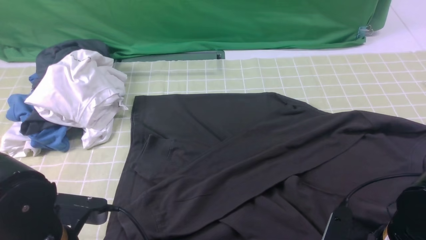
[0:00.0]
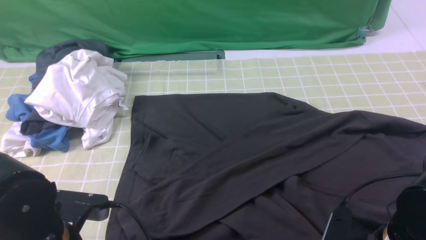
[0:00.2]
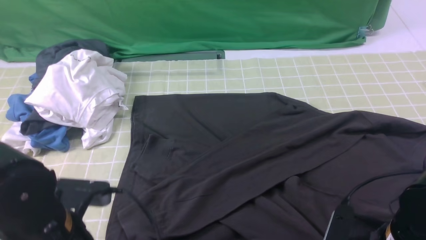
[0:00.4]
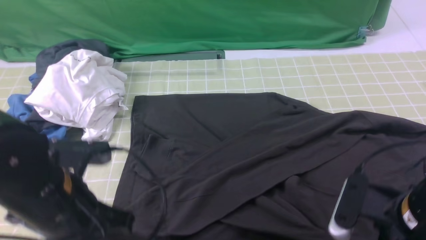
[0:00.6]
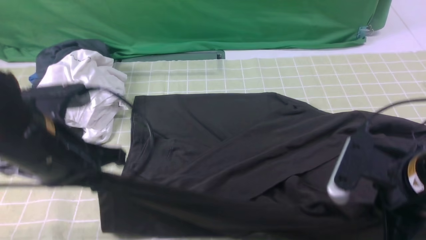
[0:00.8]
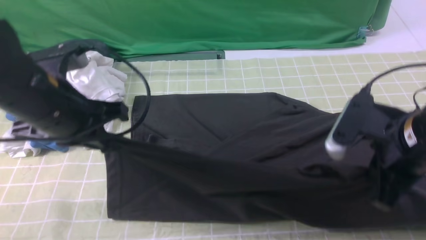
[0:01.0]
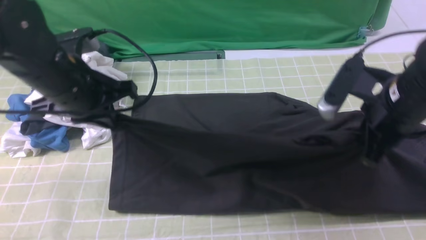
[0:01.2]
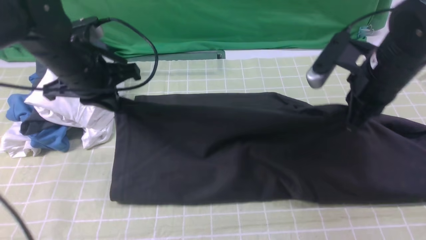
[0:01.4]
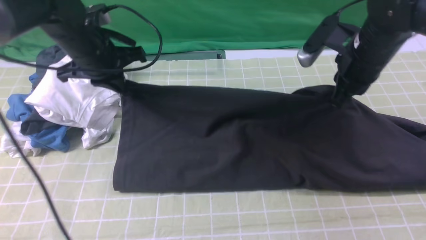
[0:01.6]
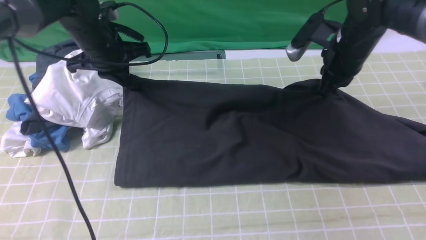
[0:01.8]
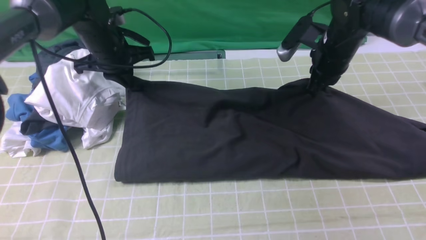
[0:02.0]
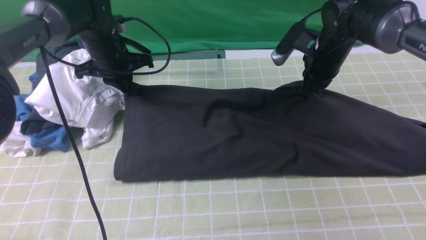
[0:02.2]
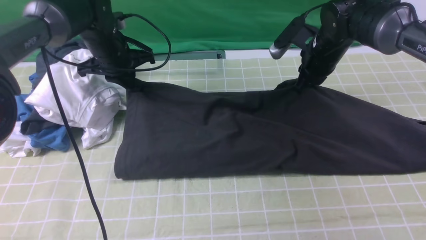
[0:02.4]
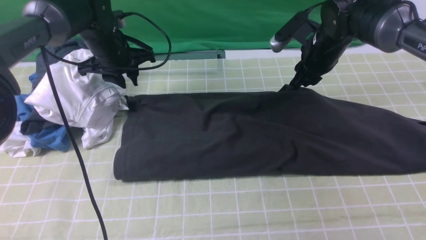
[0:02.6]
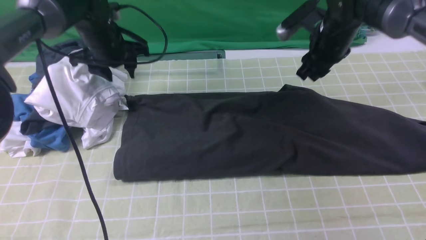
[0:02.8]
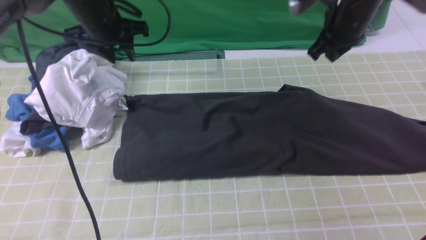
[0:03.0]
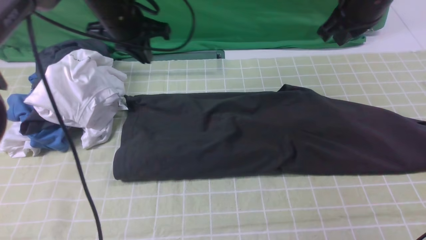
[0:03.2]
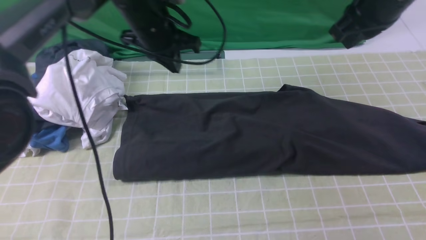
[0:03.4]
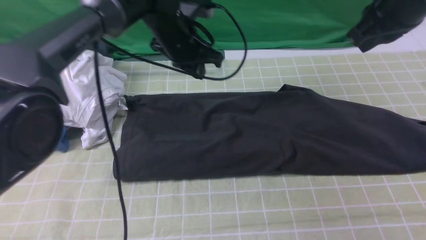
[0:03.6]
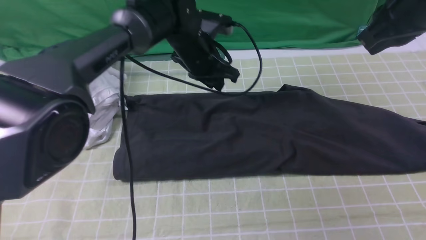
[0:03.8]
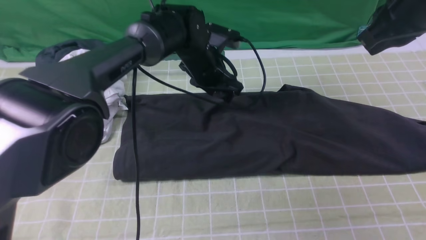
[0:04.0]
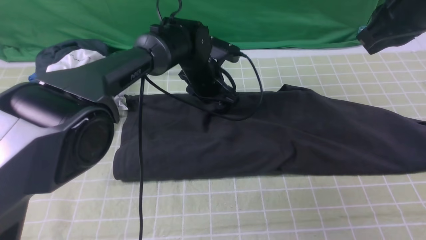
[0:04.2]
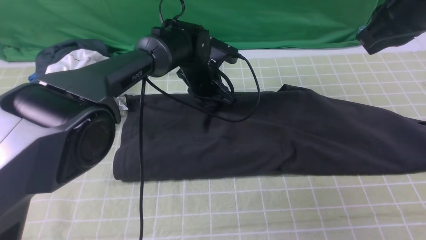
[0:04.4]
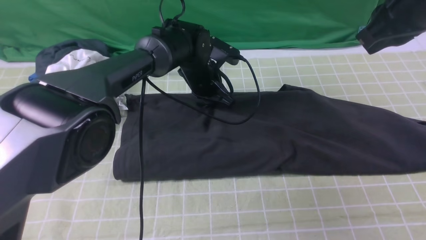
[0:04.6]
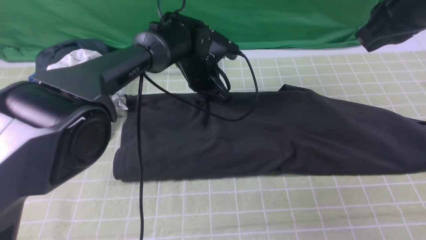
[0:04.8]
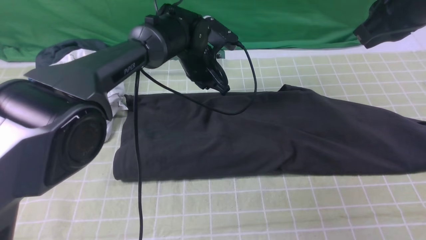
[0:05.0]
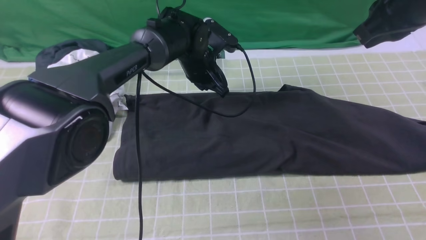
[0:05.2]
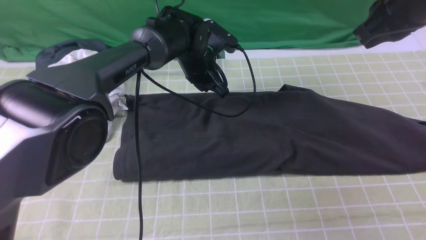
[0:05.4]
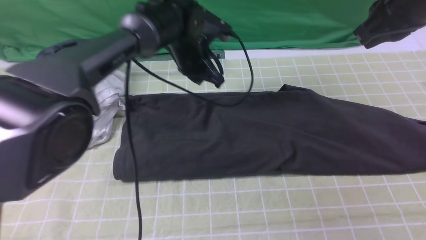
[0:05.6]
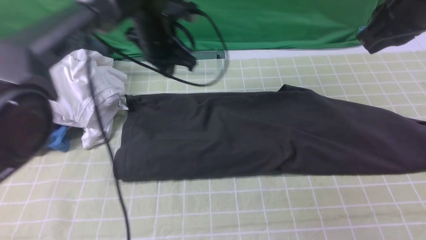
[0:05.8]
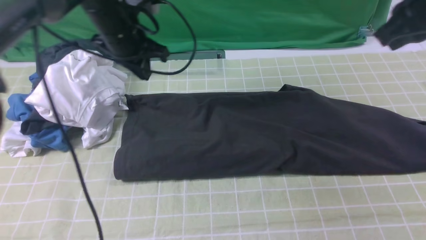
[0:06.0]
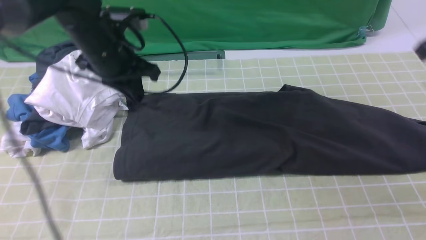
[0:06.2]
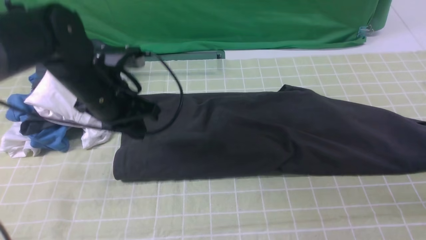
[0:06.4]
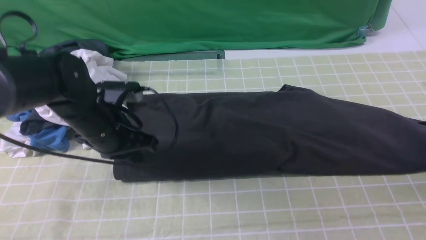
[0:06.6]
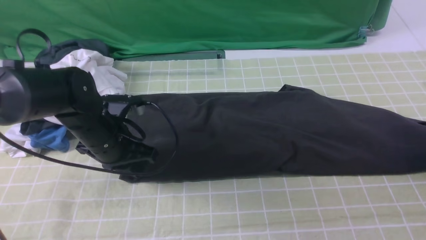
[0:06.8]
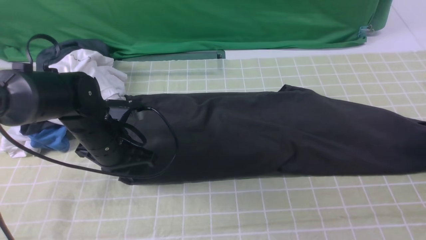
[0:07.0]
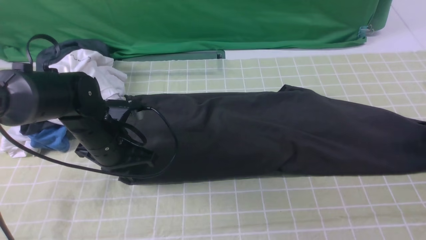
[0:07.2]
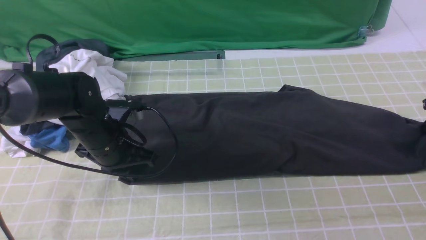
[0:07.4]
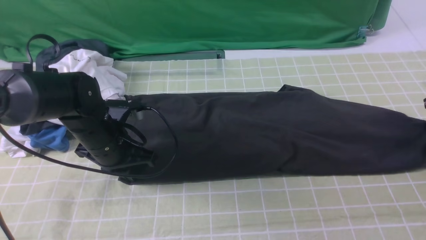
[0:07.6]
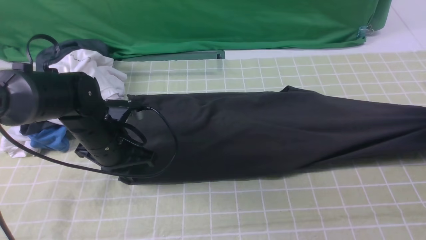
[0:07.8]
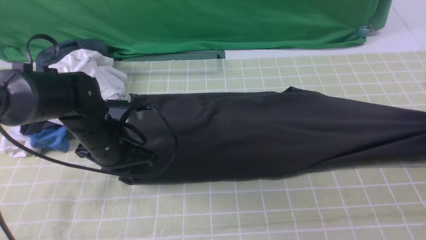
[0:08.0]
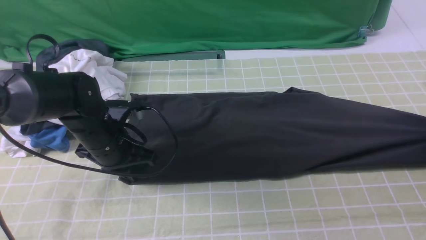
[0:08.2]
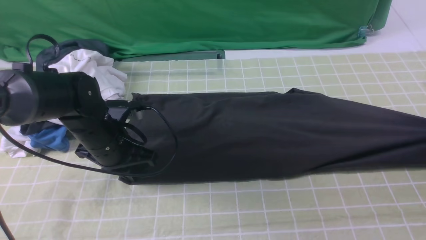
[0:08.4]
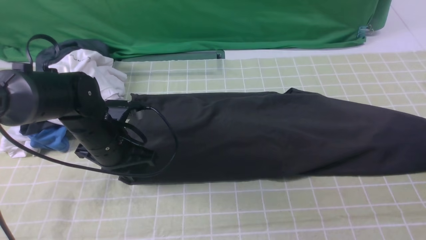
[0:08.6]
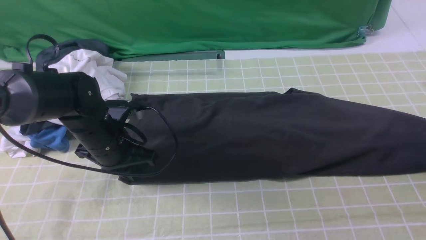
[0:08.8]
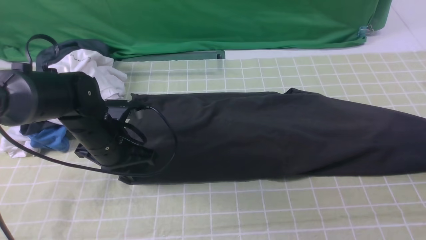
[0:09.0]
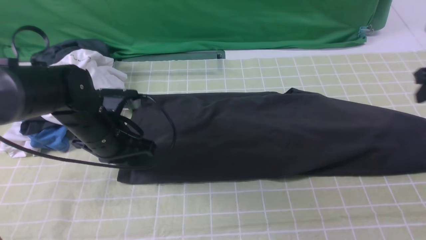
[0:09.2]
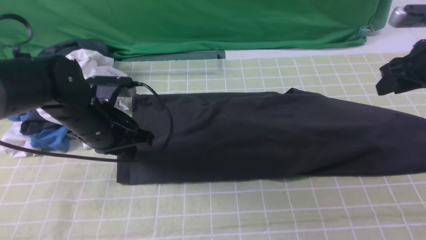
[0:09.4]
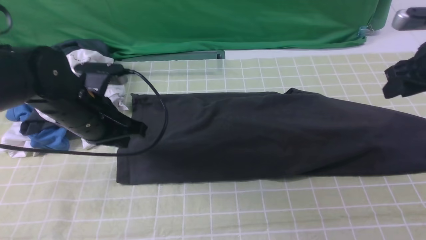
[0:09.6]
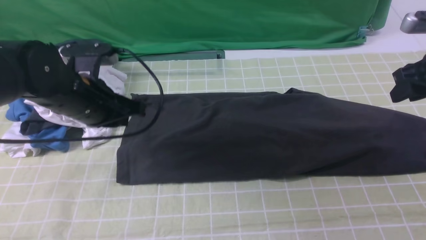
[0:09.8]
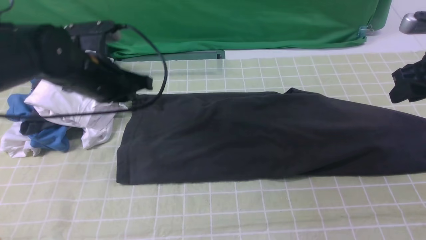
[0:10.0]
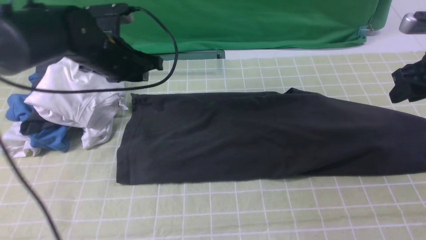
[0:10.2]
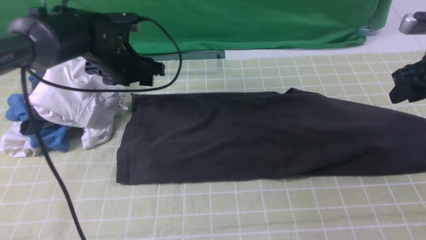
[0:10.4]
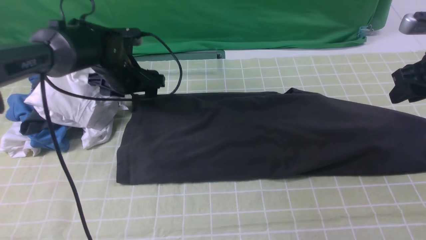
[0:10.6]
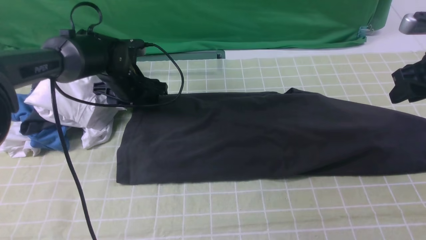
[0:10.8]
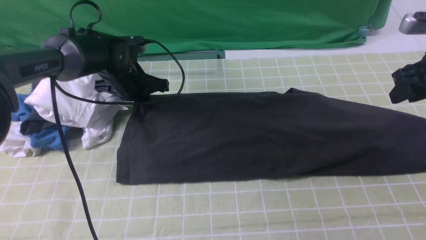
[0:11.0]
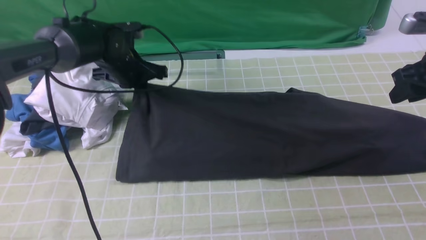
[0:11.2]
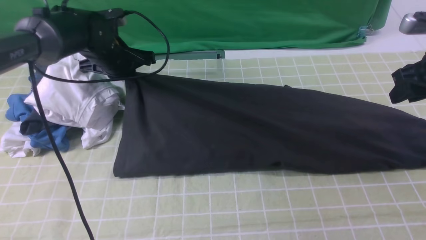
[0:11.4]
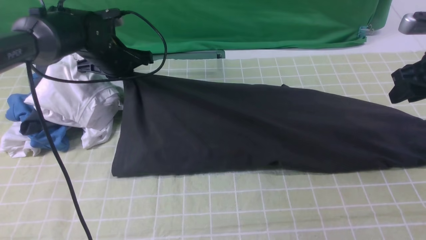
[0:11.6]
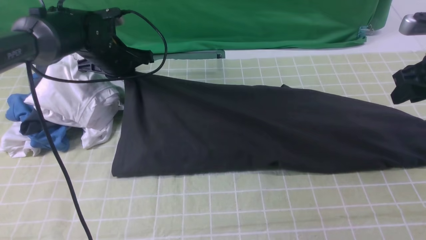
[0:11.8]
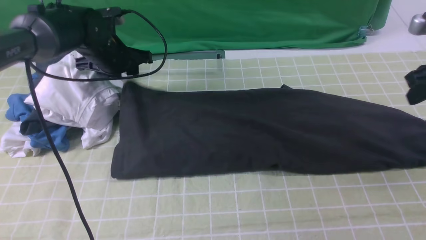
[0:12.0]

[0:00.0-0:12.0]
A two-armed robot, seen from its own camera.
Step, 0:00.4 to 0:02.6: use both arms to drag the lower edge of the fabric forward and fold it over the upper edge.
0:00.0 to 0:01.6: The right gripper goes about 25 cm forward and upward, and closes up; the left gripper travels forward by about 30 cm.
0:01.6 to 0:03.0: The left gripper is displaced forward by roughly 5 cm, and opens up.
0:03.0 to 0:04.4: The left gripper is displaced to the right and downward by roughly 20 cm, and closes and opens again. The right gripper shifts about 15 cm backward and upward.
0:04.4 to 0:06.0: The left gripper is displaced to the left and upward by about 15 cm, and closes.
0:06.0 to 0:07.6: The left gripper goes approximately 15 cm downward and backward. Meanwhile the right gripper heads downward and to the right, covering approximately 25 cm, and opens, then closes once more.
0:07.6 to 0:09.0: The right gripper goes about 10 cm upward, and opens up.
0:09.0 to 0:10.4: The right gripper heads to the left, covering about 5 cm, while the left gripper moves forward, about 10 cm, and opens its fingers.
0:10.4 to 0:12.0: The left gripper closes, then opens again.

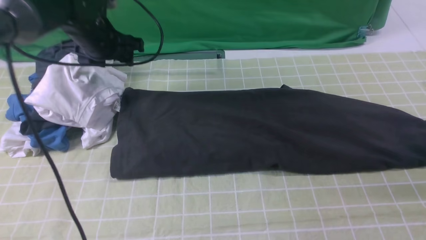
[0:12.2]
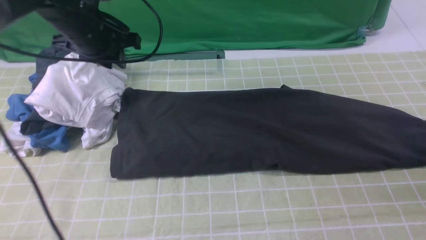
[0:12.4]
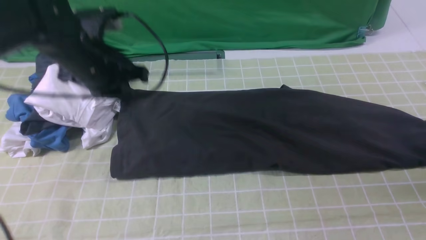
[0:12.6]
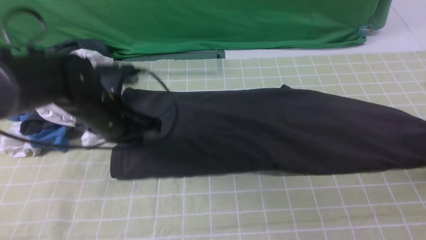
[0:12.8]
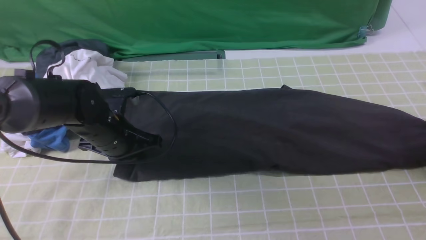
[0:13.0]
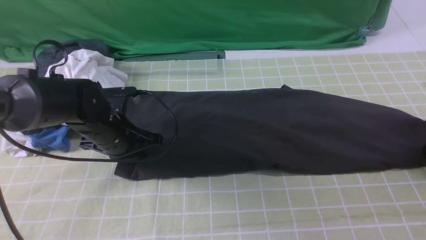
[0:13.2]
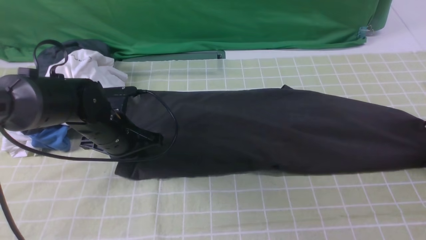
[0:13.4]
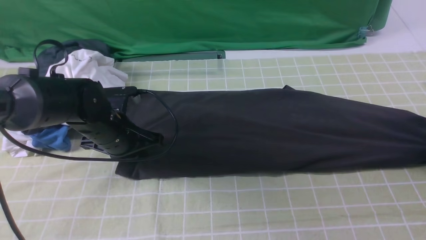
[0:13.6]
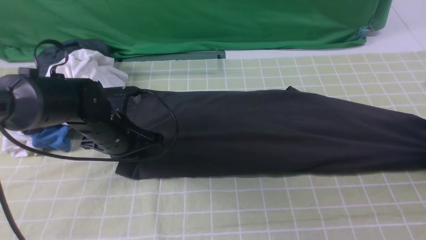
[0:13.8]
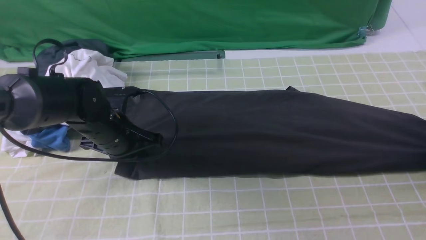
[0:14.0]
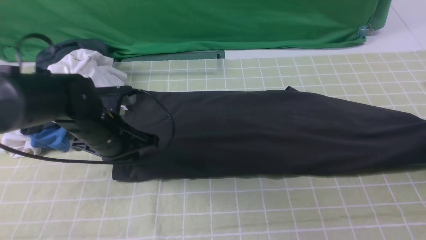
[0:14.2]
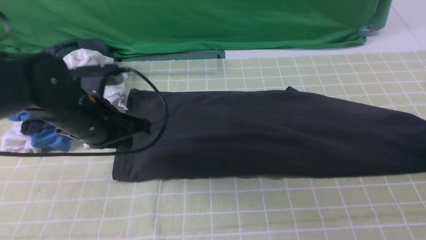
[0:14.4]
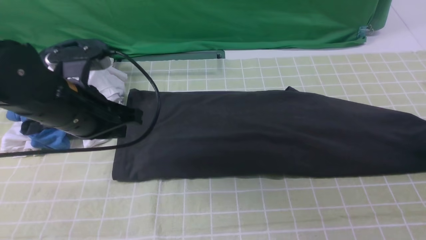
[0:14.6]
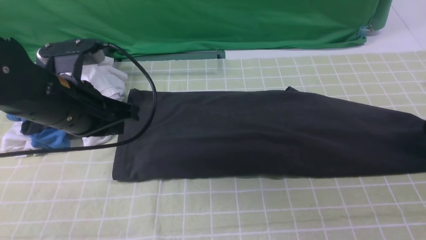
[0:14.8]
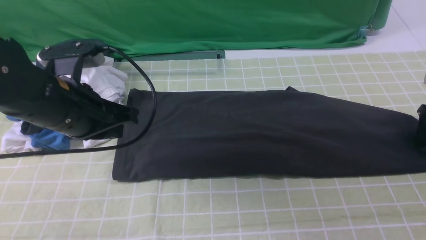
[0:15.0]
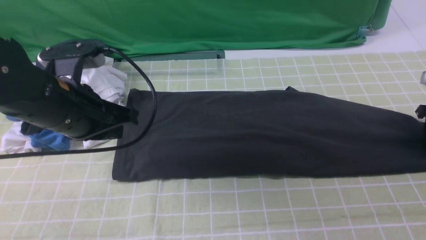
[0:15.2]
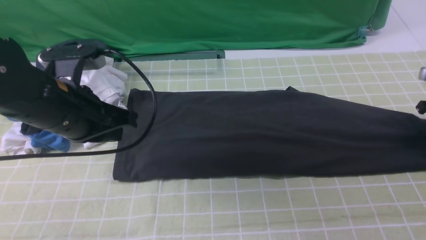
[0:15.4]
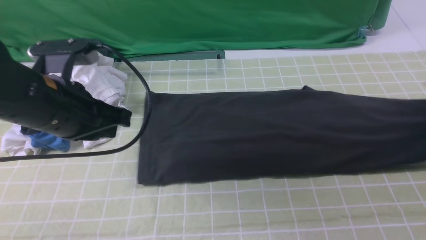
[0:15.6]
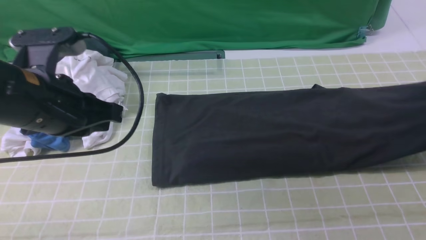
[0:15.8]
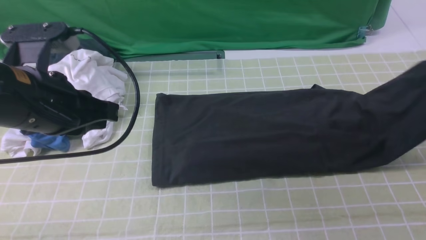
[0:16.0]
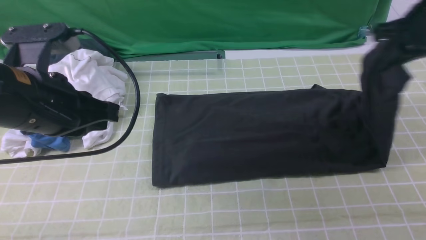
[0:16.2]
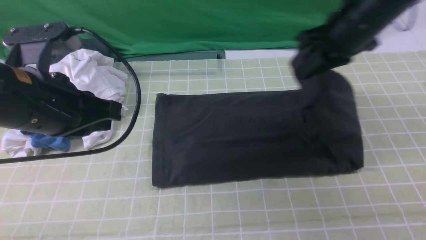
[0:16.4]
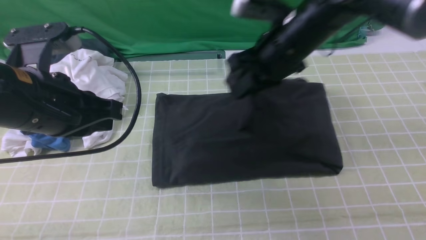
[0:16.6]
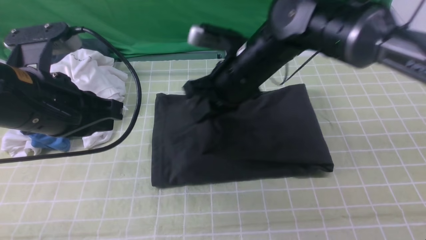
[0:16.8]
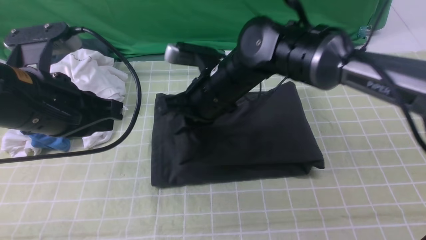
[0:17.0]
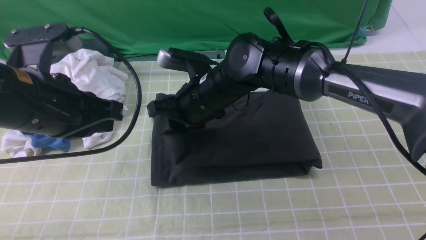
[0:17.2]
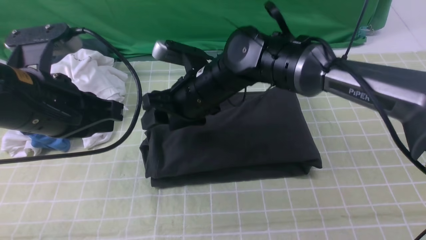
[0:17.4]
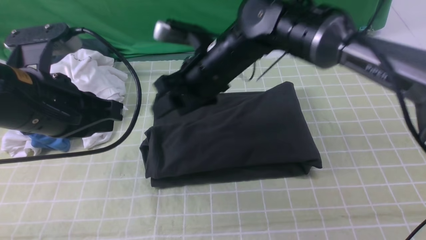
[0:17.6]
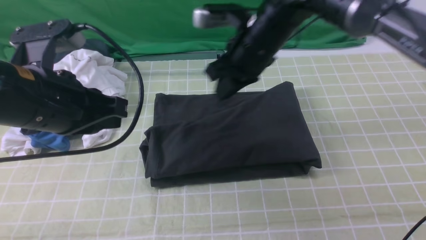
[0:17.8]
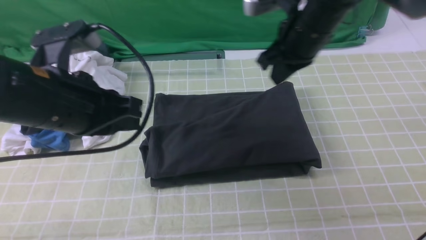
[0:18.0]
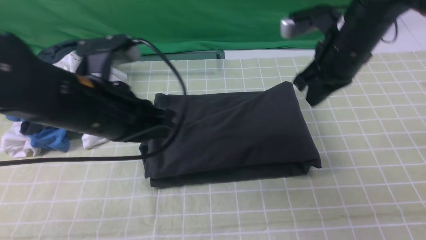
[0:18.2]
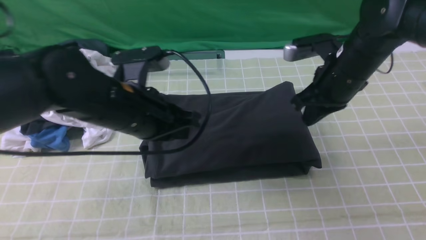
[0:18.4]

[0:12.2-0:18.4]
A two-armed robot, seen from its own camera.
Step, 0:12.2 to 0:15.2: use the right arm to clamp the right edge of the fabric.
Step, 0:15.6 to 0:17.4: use the right arm to drag the right edge of the fabric to the left and folds it over the left edge.
0:12.2 to 0:13.8: The right gripper is displaced downward and to the right by about 15 cm, and opens, then closes once more. Meanwhile the left gripper goes approximately 15 cm downward and backward, and closes.
0:13.8 to 0:15.4: The left gripper goes some 15 cm upward and backward. Meanwhile the right gripper opens and closes again.
0:15.4 to 0:16.8: The right gripper goes about 40 cm to the left.
0:16.8 to 0:18.4: The left gripper is displaced to the right, downward and forward by roughly 10 cm, while the right gripper is displaced to the right by roughly 15 cm, and opens, then closes once more.
